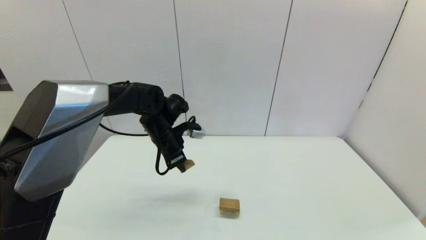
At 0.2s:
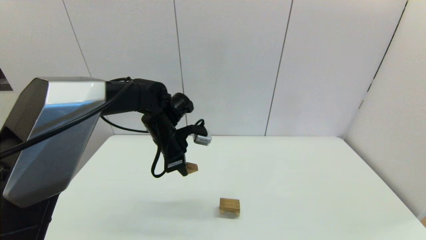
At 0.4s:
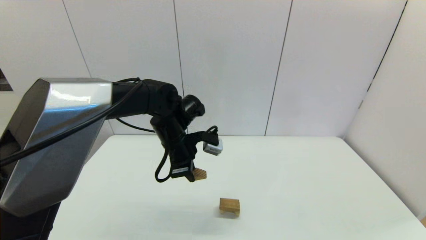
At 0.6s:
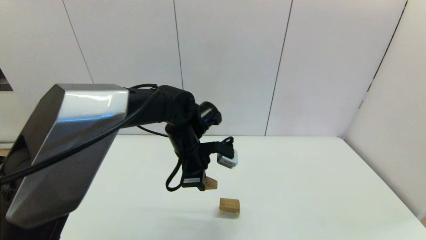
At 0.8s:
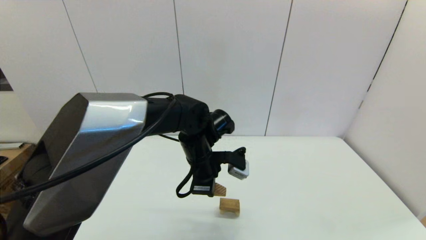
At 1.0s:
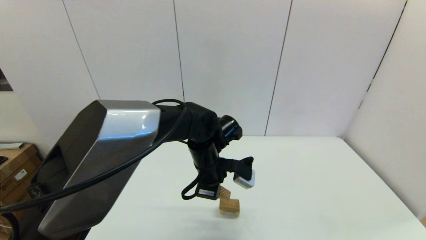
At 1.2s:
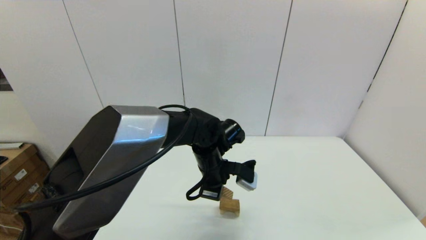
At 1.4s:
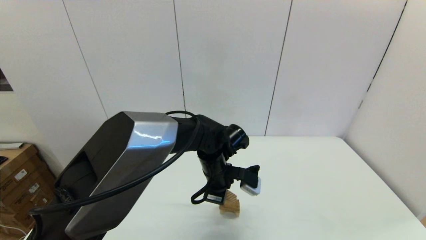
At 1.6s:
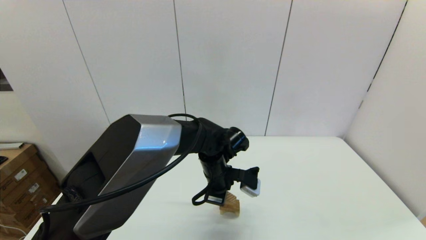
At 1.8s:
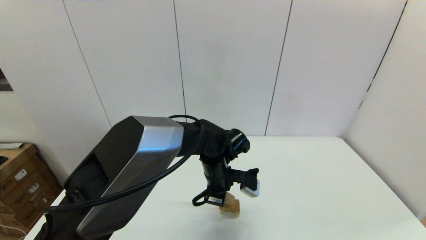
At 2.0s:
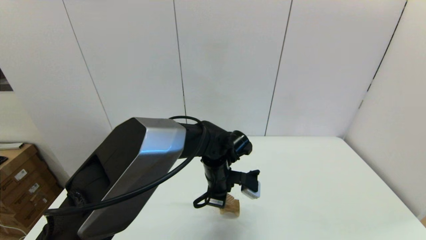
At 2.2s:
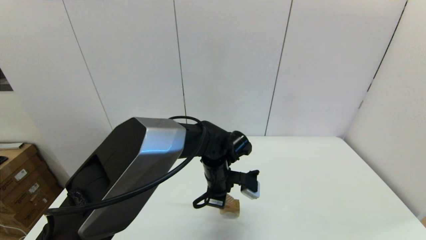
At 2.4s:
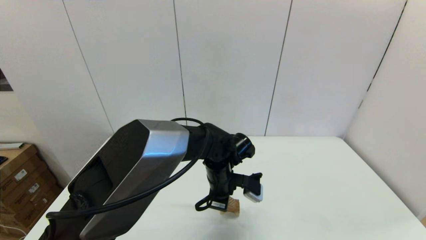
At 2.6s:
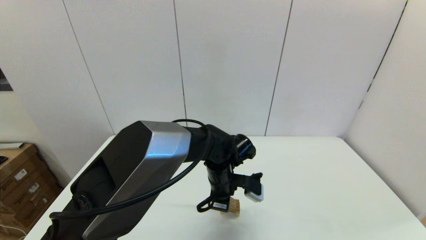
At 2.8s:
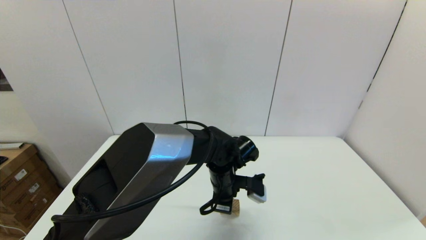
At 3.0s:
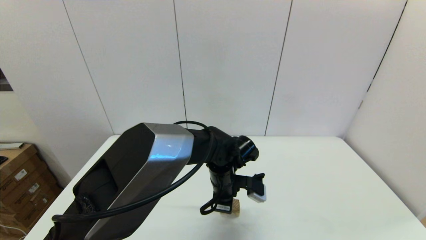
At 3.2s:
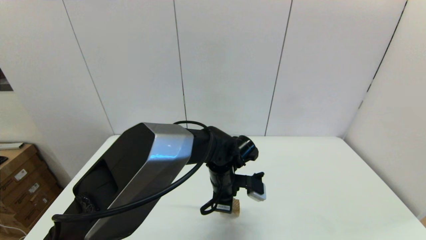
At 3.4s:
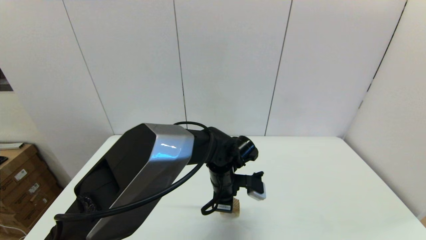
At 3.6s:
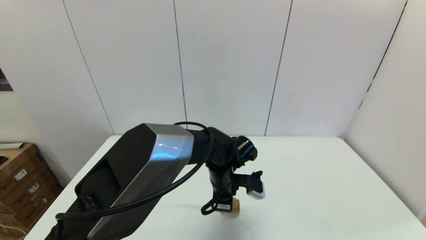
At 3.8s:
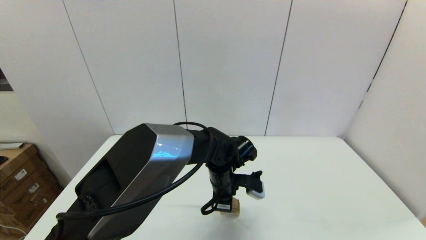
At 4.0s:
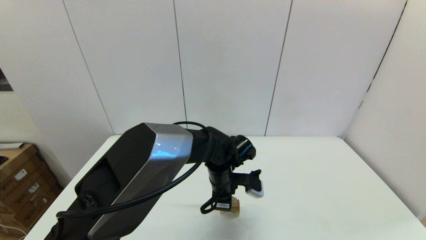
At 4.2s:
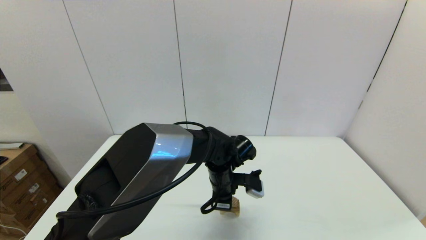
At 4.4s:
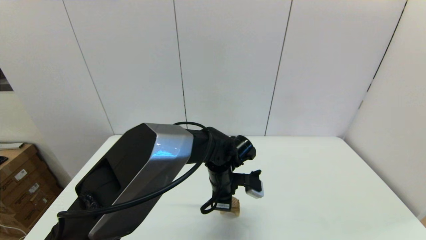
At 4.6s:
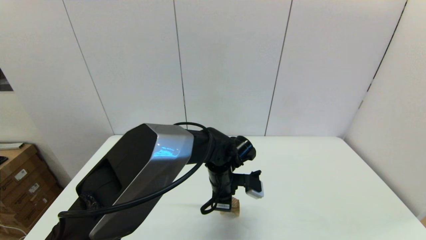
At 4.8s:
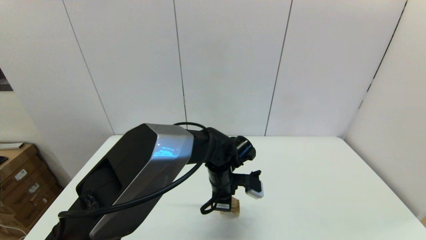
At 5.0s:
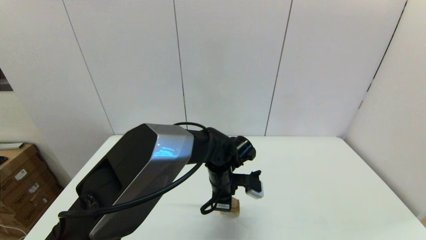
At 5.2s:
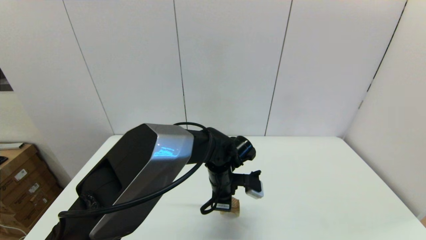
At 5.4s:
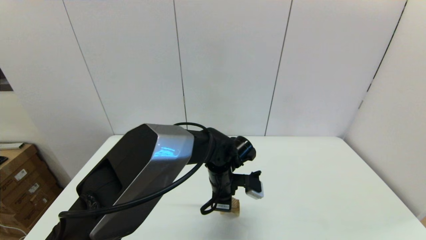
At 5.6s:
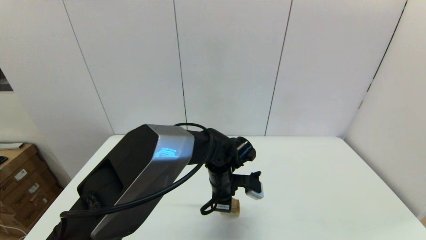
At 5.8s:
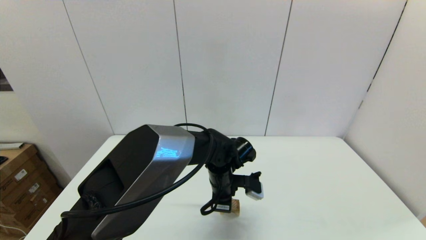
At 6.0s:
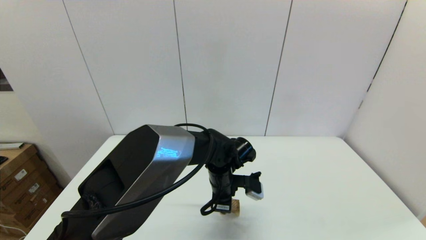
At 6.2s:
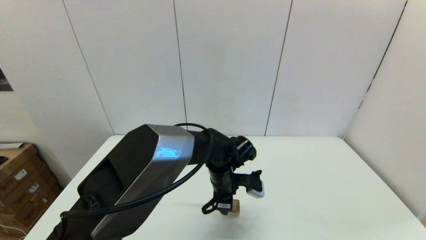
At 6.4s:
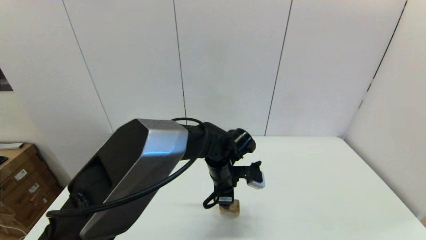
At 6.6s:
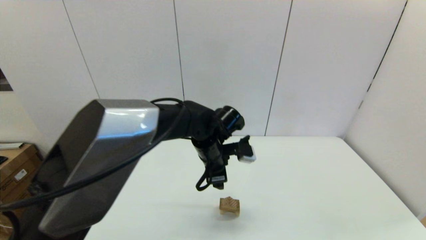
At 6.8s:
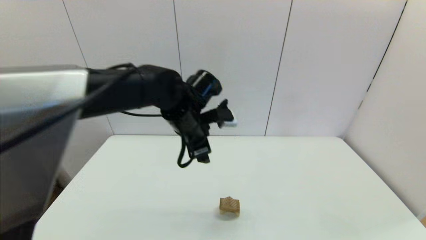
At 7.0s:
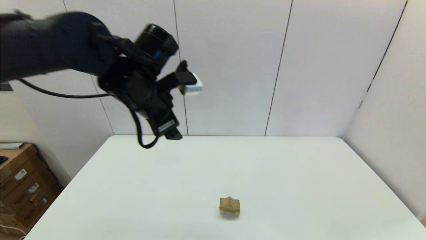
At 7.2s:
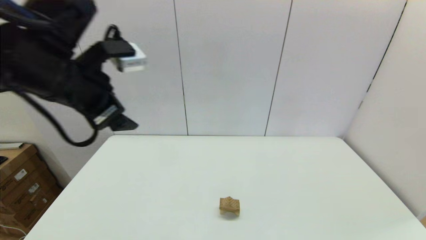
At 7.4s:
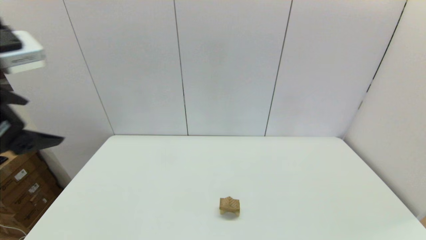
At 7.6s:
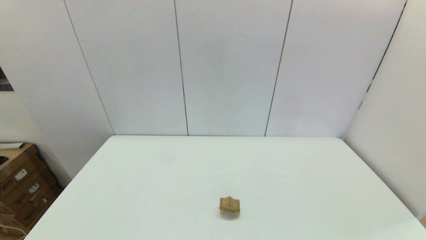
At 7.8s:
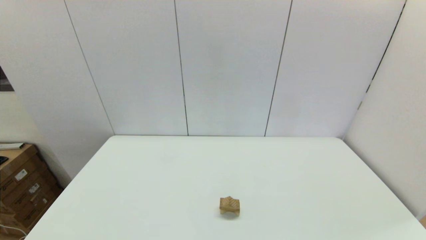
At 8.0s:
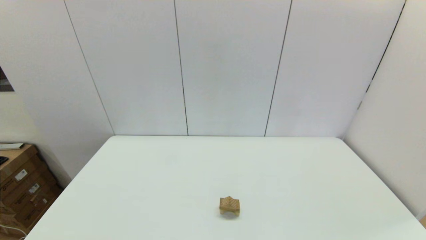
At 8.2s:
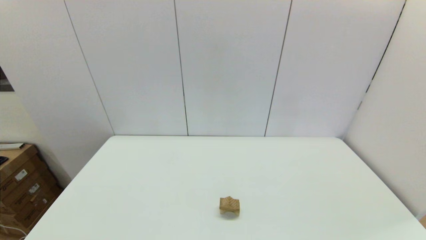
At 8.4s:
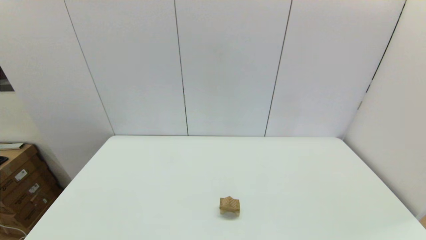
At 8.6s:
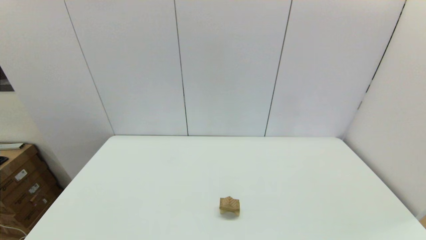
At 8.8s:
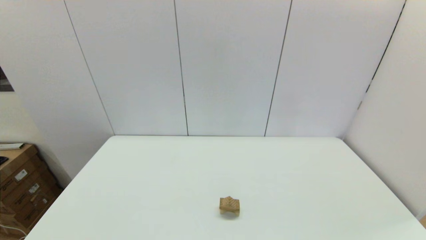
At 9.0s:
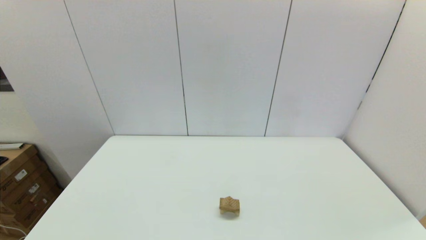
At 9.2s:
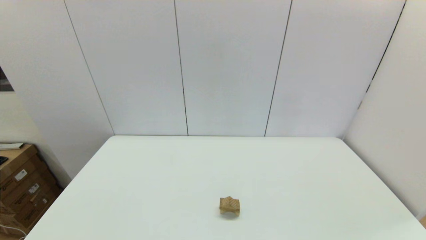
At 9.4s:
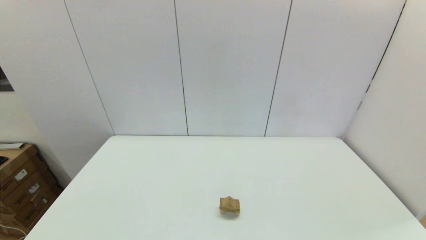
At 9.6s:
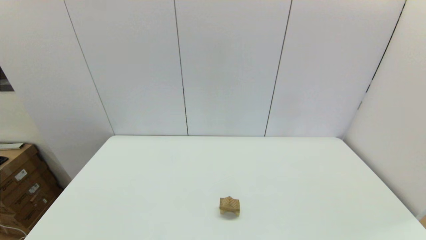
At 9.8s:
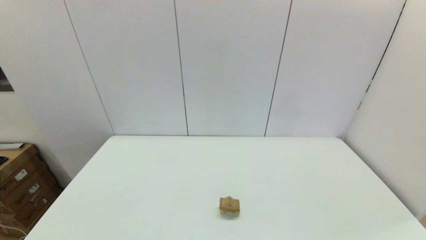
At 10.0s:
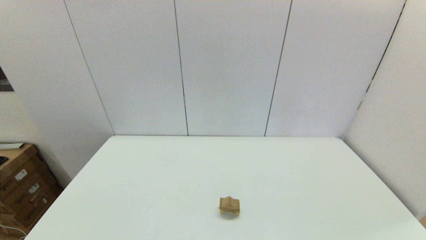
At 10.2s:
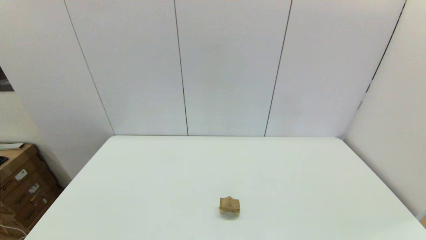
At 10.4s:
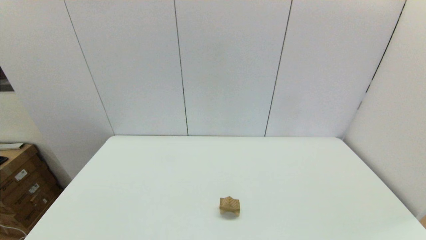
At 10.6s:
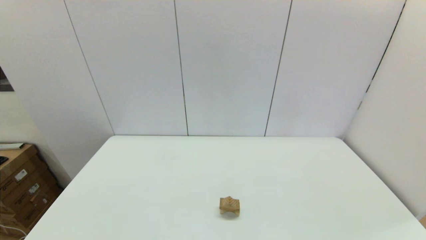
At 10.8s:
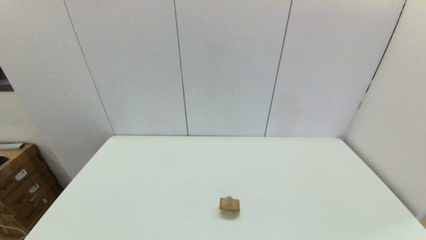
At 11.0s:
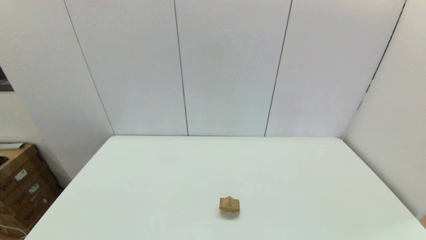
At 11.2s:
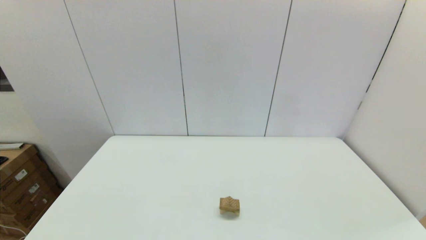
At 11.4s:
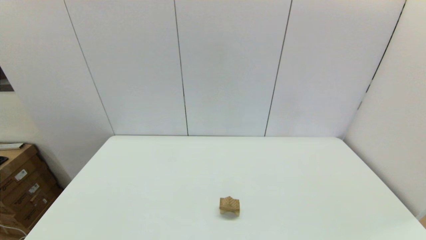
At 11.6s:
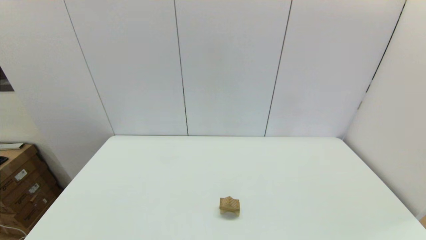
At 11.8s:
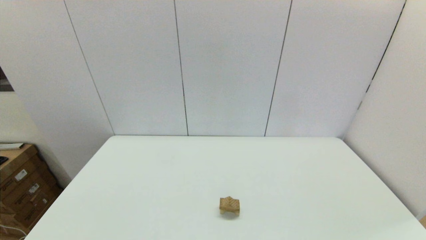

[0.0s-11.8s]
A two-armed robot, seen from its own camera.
Task of the whole recording: place the arched building blocks in the center of the table, set up the rectangular building blocks, and then set up the triangular building blocks.
0.0s to 1.4s: The left gripper shifts about 15 cm to the right and backward.
1.4s to 3.0s: The grippers stay close to where they were, moving slightly.
3.0s to 4.4s: The two grippers keep their place.
4.4s to 6.0s: The left gripper opens up.
6.0s to 7.4s: The left gripper moves upward, to the left and backward, approximately 40 cm, and opens its fingers.
7.4s to 8.8s: The left gripper is displaced backward and downward by some 30 cm.
10.4s to 11.8s: Neither gripper changes place.
